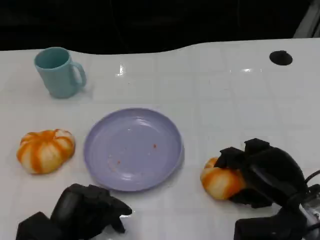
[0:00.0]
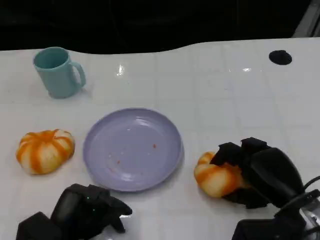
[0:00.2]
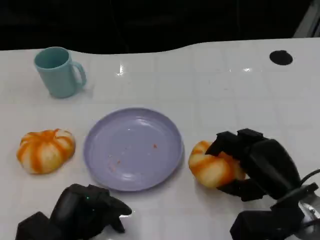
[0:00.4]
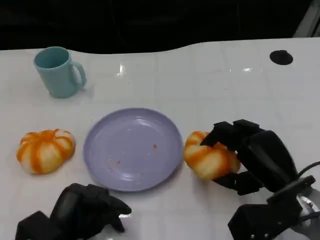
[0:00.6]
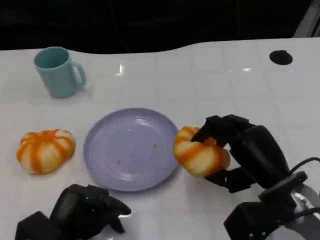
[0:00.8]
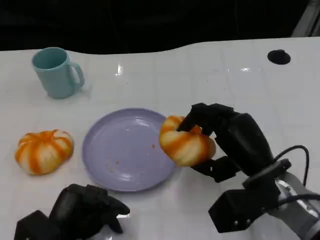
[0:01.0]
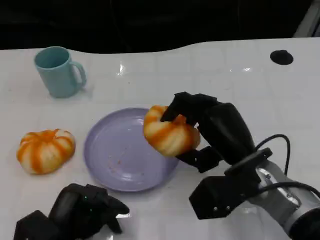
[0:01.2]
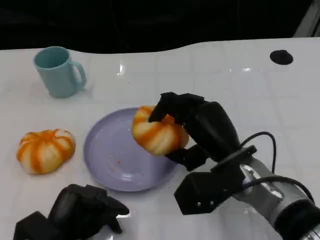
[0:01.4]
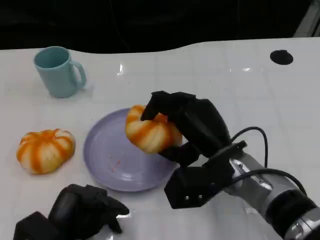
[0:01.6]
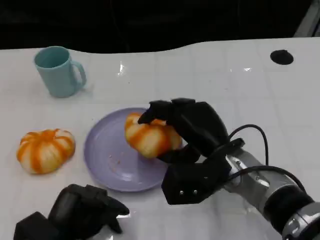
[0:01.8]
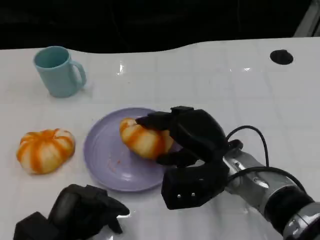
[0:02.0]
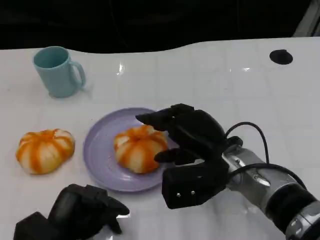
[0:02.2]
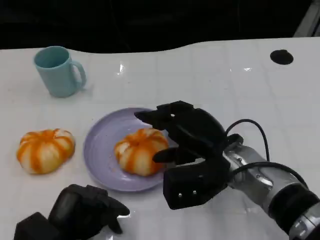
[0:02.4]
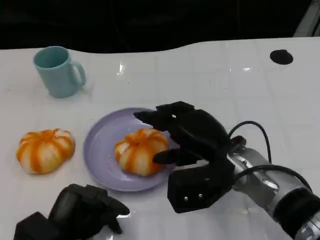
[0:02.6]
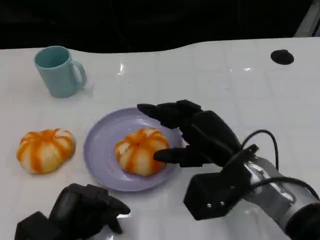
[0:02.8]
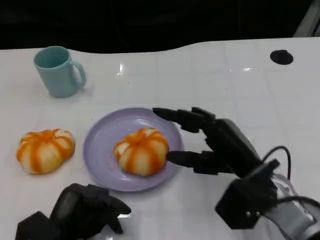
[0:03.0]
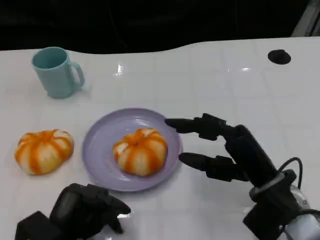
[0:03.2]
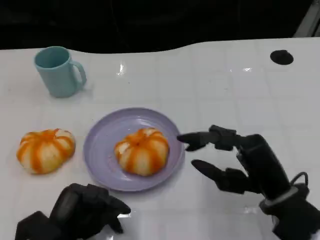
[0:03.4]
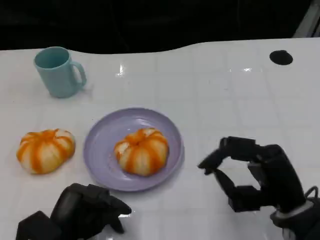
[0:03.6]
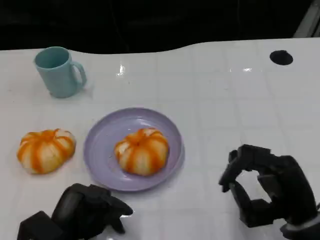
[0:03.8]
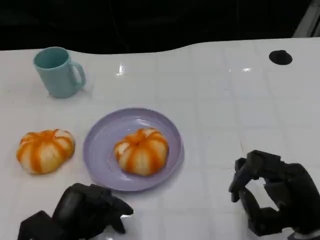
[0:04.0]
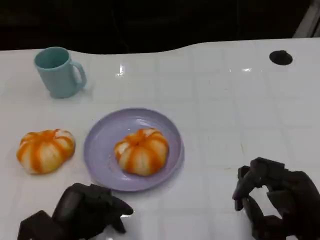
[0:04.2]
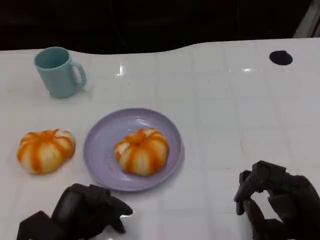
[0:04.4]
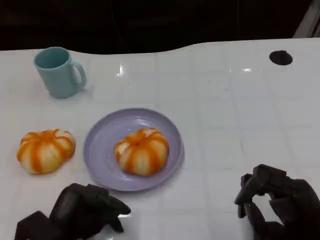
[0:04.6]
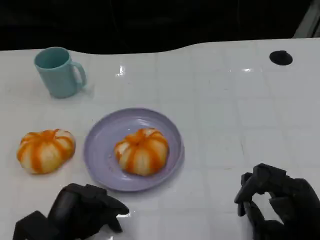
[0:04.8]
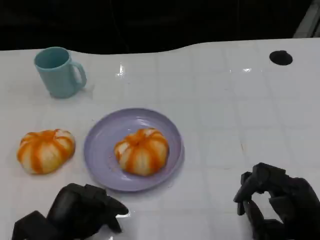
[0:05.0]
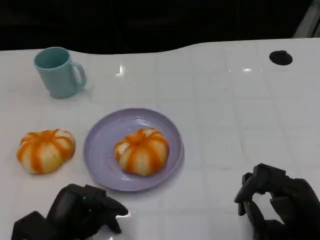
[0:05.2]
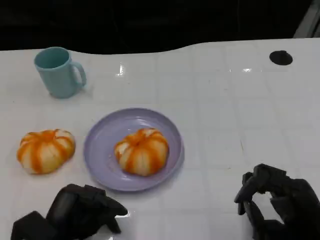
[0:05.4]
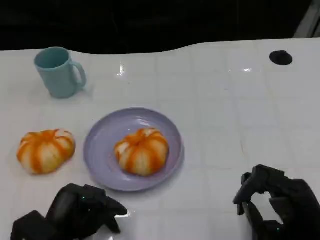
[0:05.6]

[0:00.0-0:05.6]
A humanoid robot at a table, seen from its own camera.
Task of the whole recording: Grasp the bread from the table and place it into the plate.
0:00.0 to 0:01.4: The right hand goes about 10 cm to the left.
0:02.8 to 0:04.2: The right hand travels to the right and backward by some 15 cm.
0:04.2 to 0:05.6: The hands make only small movements.

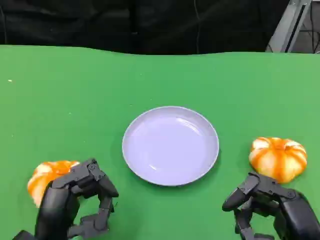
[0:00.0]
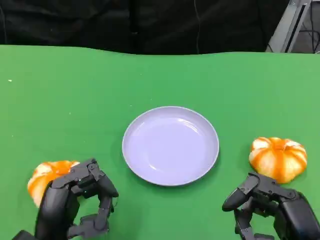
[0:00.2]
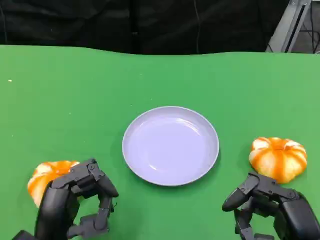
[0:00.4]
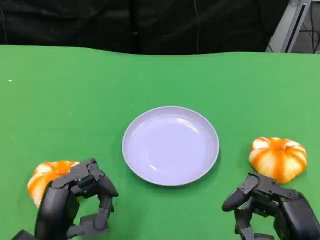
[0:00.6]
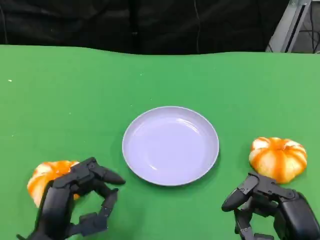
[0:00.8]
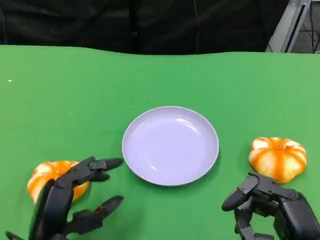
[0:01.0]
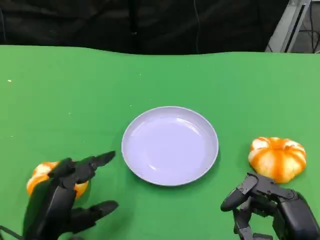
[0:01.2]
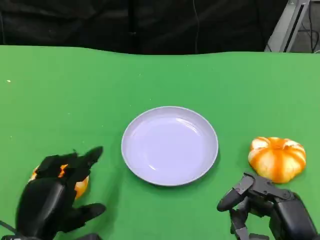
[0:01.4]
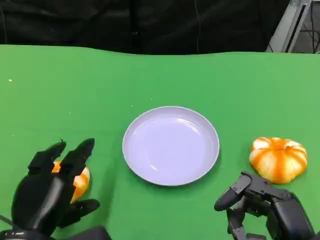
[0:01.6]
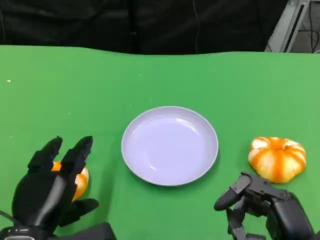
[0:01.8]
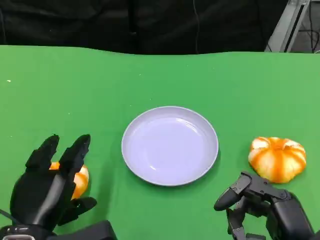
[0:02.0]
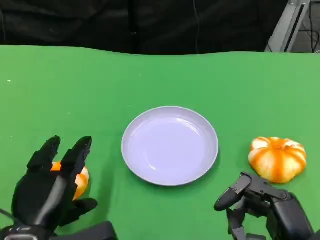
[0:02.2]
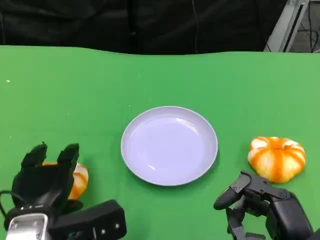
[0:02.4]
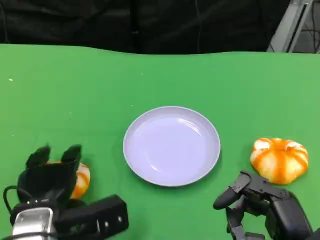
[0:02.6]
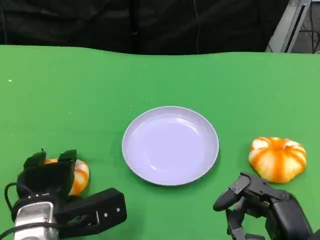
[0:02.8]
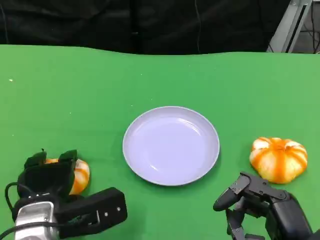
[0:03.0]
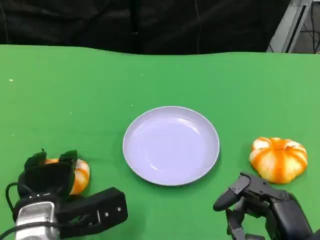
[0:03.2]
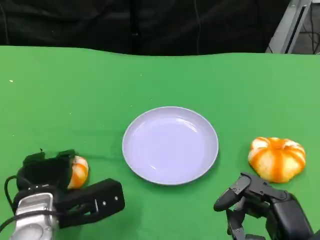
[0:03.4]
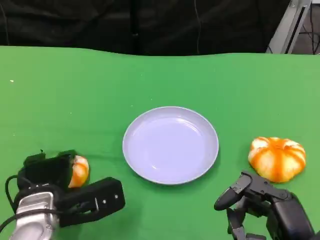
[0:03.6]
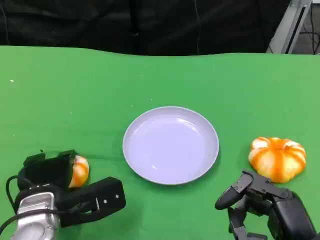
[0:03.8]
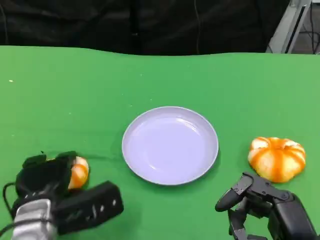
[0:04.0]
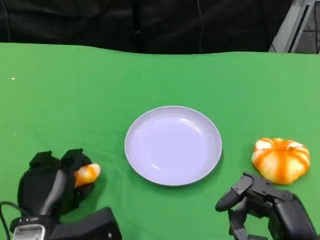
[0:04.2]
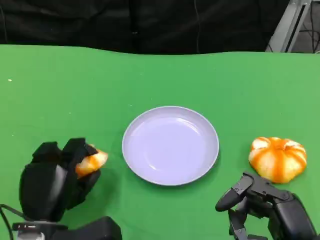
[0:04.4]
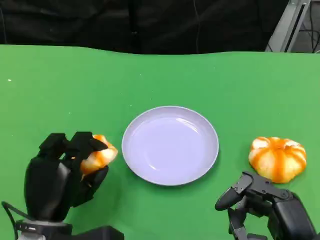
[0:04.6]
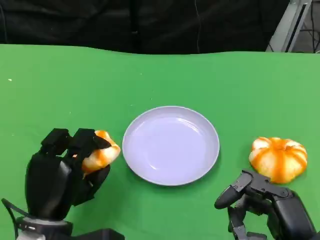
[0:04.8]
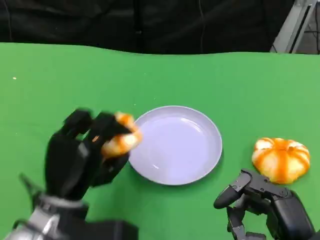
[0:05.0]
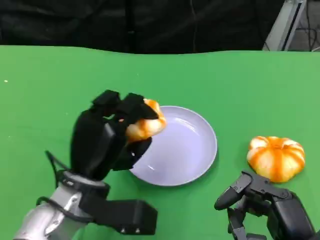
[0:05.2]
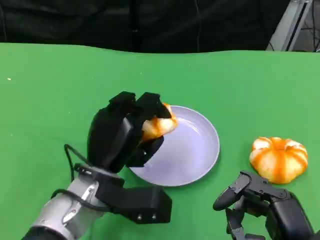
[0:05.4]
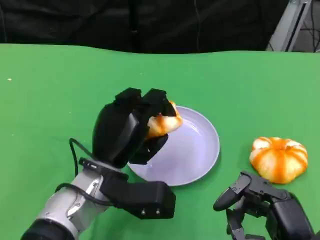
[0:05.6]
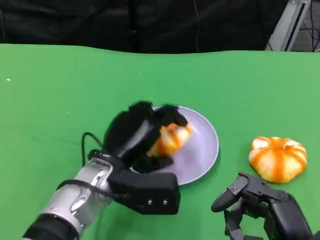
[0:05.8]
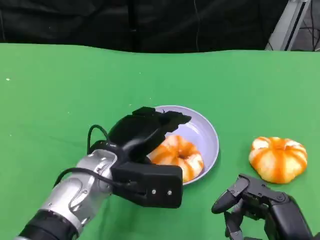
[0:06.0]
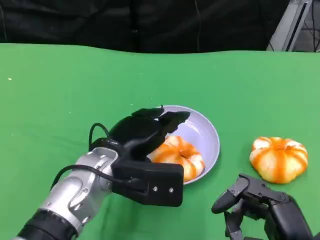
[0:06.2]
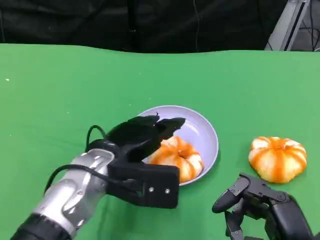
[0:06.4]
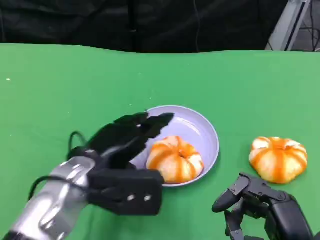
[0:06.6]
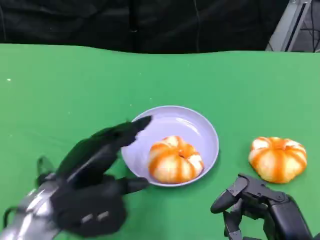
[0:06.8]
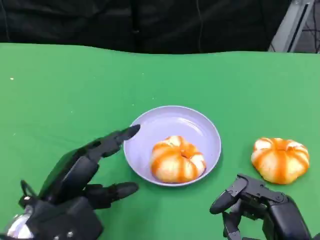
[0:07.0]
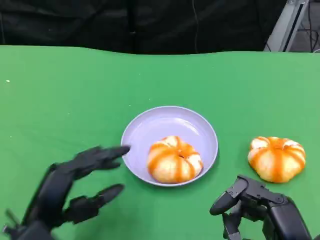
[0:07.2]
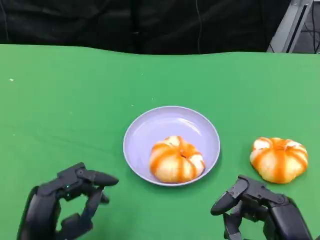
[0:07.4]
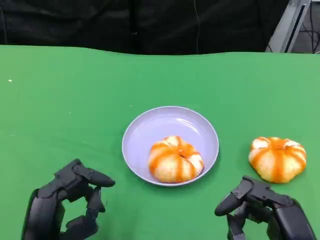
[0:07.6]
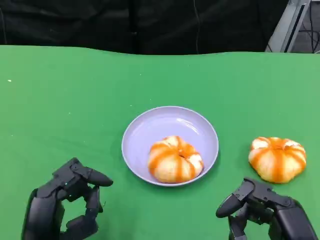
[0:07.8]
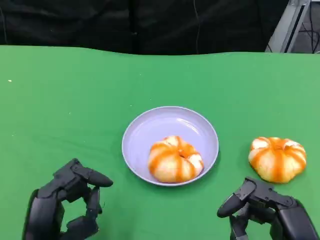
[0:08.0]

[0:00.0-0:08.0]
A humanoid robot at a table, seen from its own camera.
Task of the whole recording: Grasp the bread from the table and place it into the plate.
0:01.6 to 0:03.2: The left hand ends up roughly 5 cm from where it was.
0:04.8 to 0:06.4: The left hand is displaced upward, to the right and forward by about 10 cm.
0:06.4 to 0:08.0: The left hand goes approximately 15 cm backward, to the left and downward.

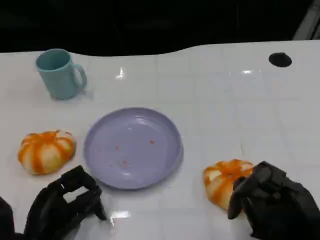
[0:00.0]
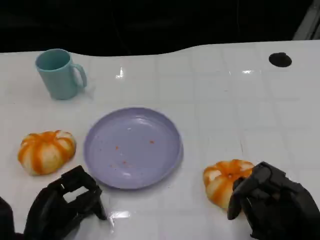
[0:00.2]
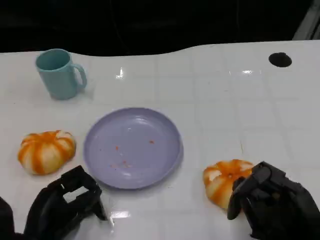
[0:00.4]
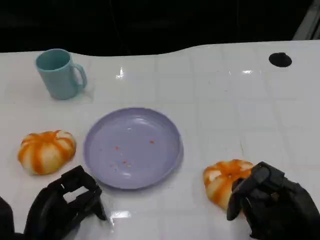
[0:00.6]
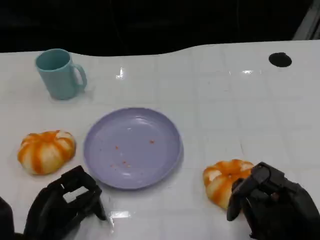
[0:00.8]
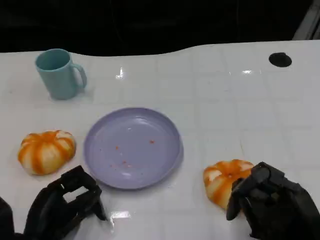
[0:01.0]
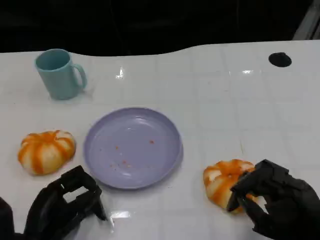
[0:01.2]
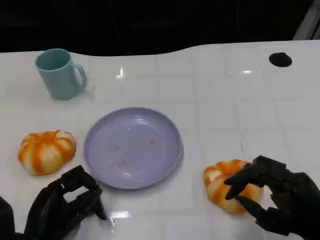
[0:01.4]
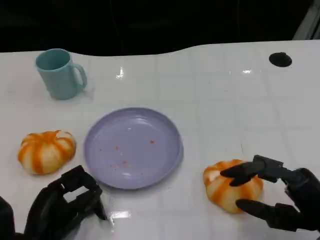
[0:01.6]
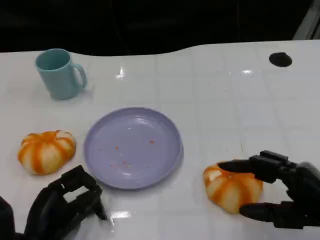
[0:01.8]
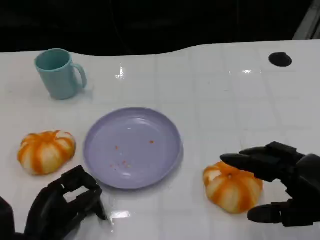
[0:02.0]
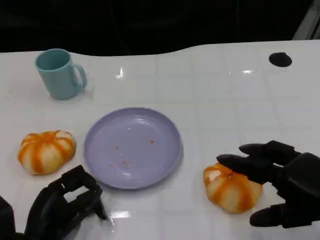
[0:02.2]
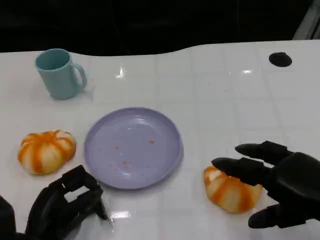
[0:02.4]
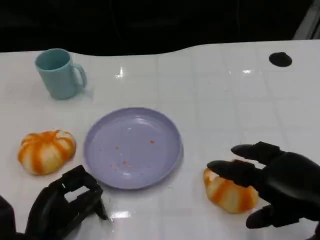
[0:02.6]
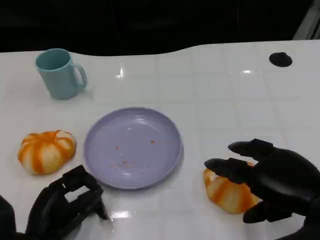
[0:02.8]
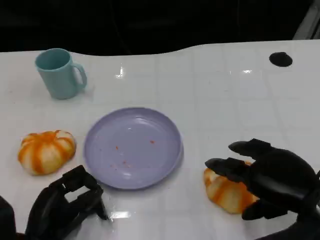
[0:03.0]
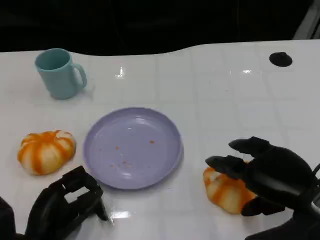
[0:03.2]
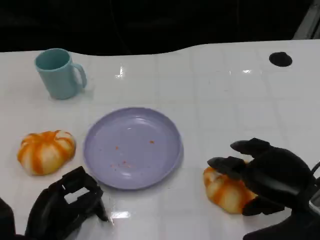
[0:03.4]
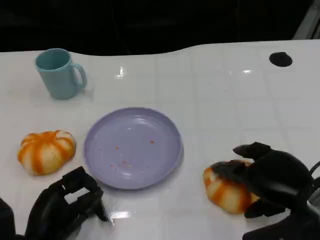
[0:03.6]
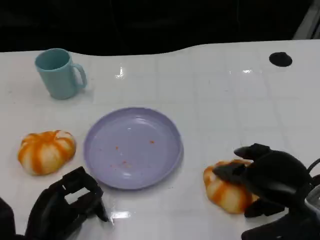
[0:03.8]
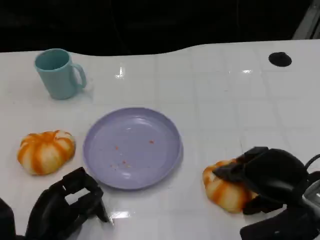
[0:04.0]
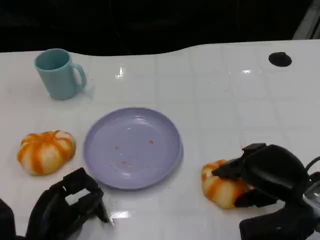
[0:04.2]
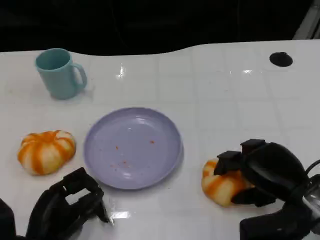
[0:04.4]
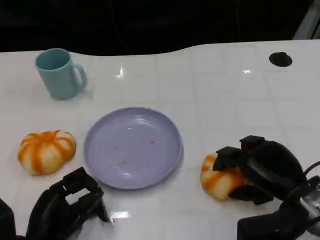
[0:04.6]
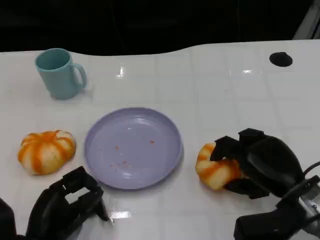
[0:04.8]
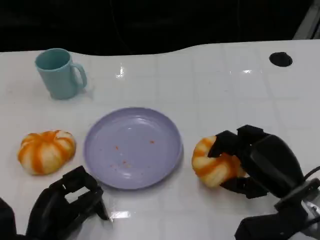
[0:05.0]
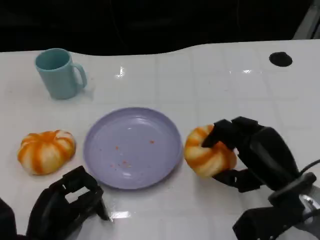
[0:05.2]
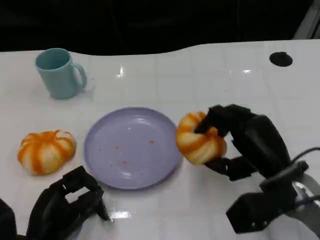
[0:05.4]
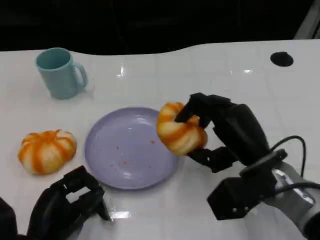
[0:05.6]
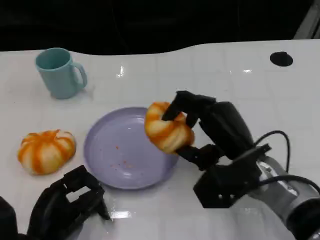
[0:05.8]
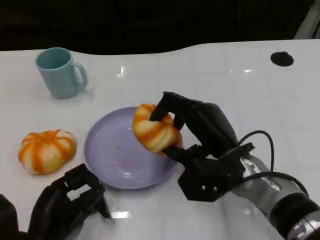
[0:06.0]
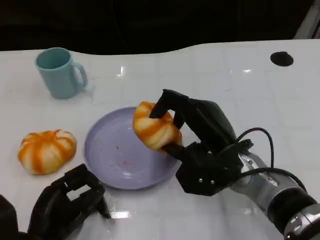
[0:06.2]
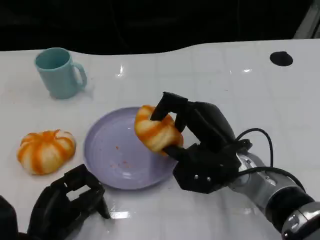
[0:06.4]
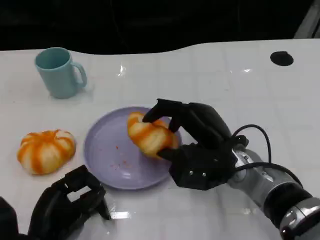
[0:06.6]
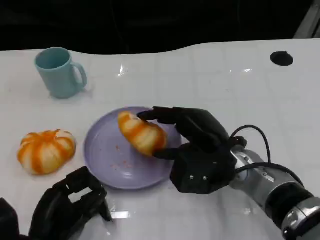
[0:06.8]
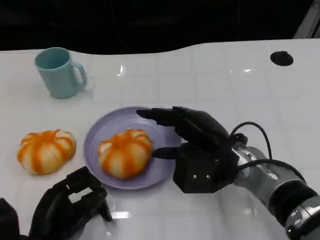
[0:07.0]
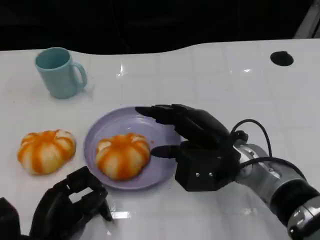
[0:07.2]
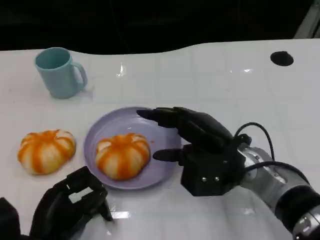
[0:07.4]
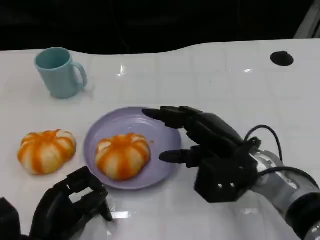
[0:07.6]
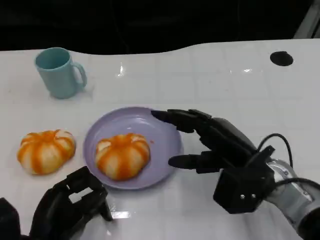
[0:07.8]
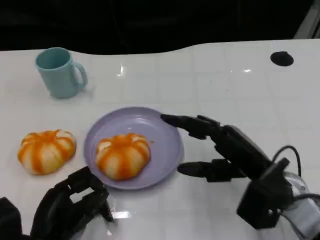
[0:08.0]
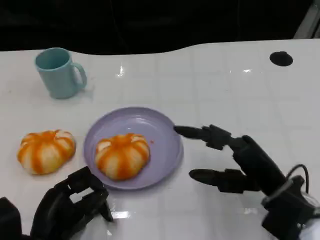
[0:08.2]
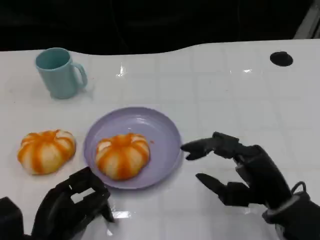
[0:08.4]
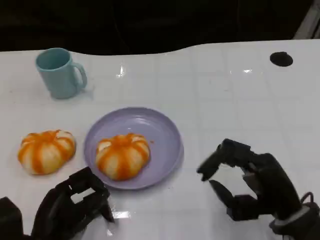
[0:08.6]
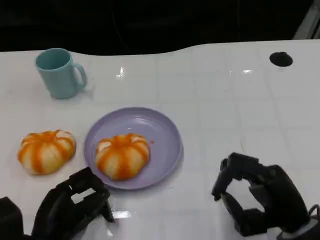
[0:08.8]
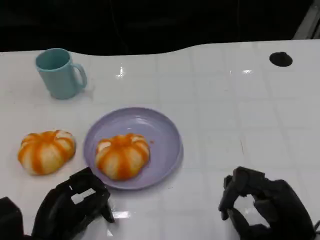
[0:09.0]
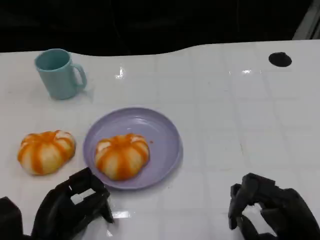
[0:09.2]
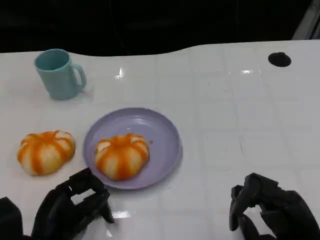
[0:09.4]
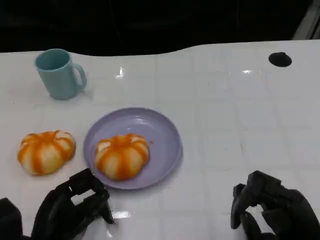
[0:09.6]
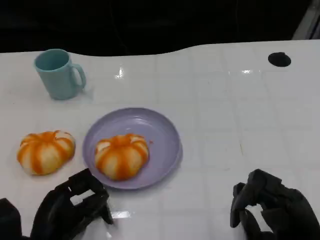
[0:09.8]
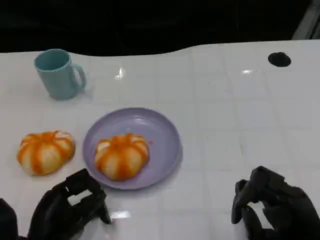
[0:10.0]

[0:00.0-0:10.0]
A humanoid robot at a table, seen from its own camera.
Task of the whole recording: Grasp the bread from the table and place it into the plate.
0:01.4 to 0:02.8: The right hand travels upward by about 5 cm.
0:02.8 to 0:04.2: The right hand changes place by roughly 5 cm.
0:04.2 to 0:05.8: The right hand heads to the left, covering about 10 cm.
0:07.2 to 0:08.6: The right hand moves backward and to the right, approximately 10 cm.
0:08.6 to 0:10.0: The right hand ends up roughly 5 cm from where it was.
